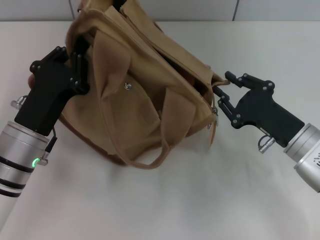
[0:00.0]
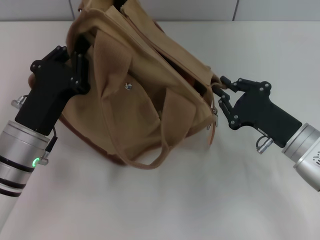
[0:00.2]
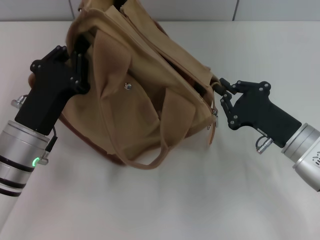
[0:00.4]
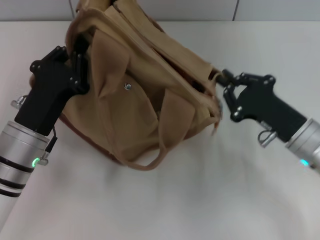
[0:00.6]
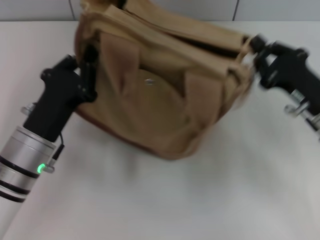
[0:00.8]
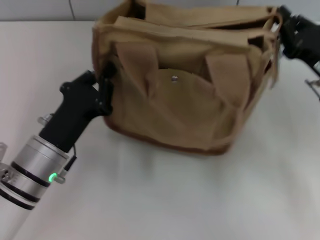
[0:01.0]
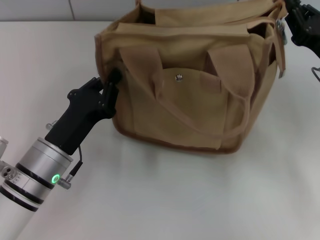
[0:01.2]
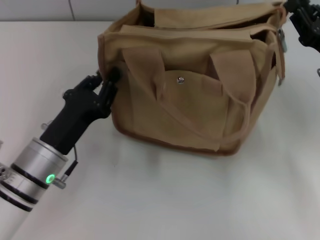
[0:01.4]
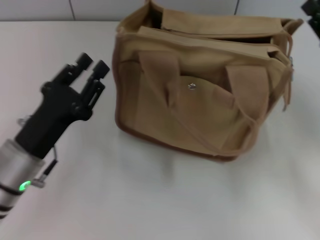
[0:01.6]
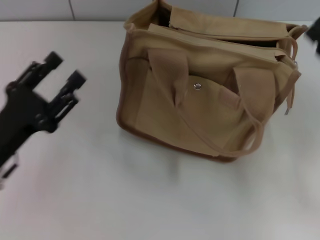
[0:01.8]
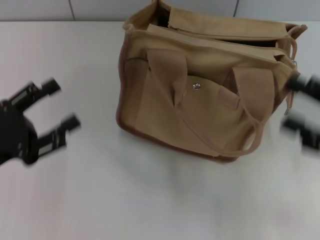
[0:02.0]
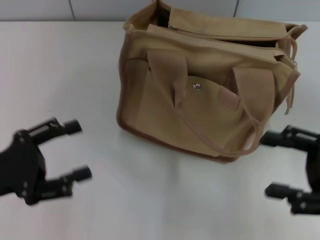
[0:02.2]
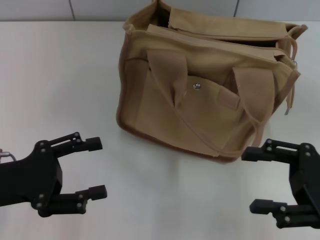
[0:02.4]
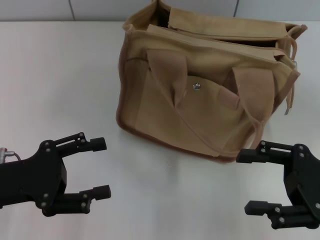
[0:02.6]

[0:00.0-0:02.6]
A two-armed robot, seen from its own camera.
Step, 0:00.0 to 0:01.4: Grab the bag with your left hand.
0:00.0 to 0:01.2: The right gripper is displaced upward, to the right and forward by some 10 cm, and closes.
0:01.2 to 0:02.6: The left gripper goes roughly 10 cm to the left and upward, and opens. Meanwhile the right gripper travels backward by roughly 10 cm, and opens up.
